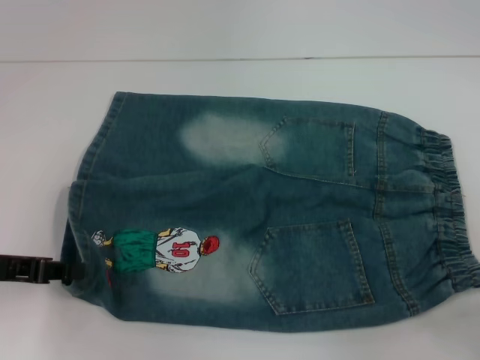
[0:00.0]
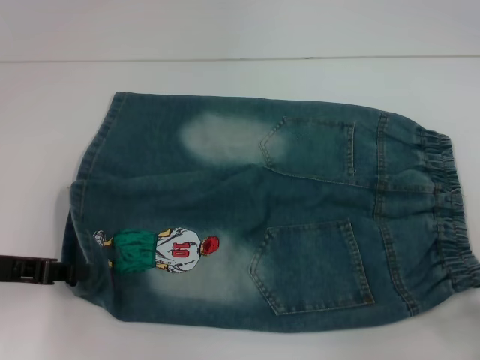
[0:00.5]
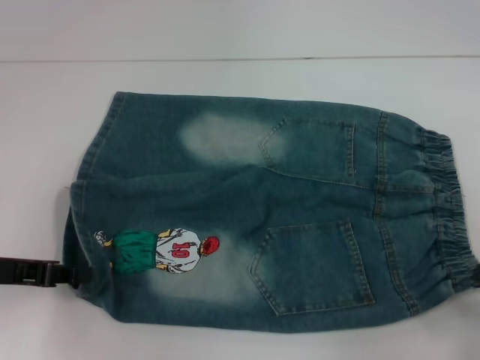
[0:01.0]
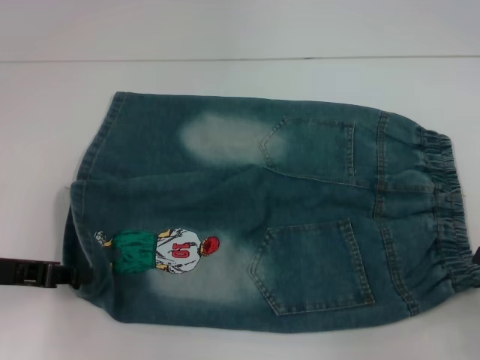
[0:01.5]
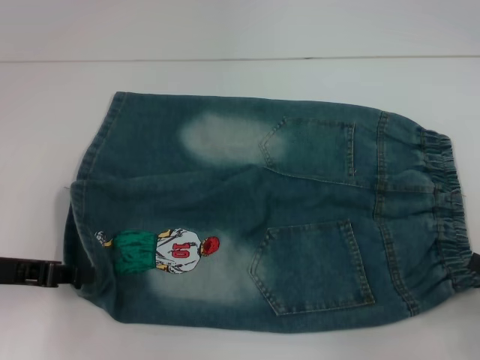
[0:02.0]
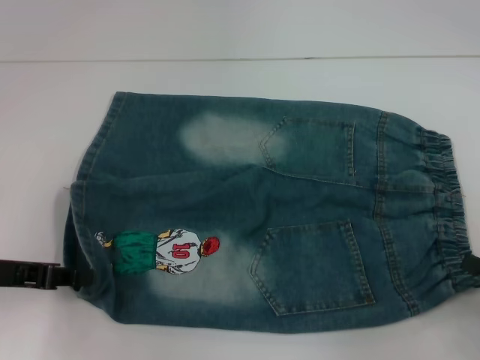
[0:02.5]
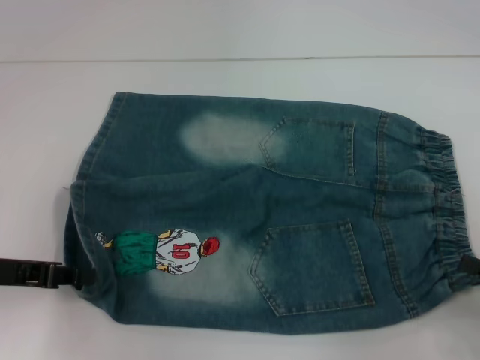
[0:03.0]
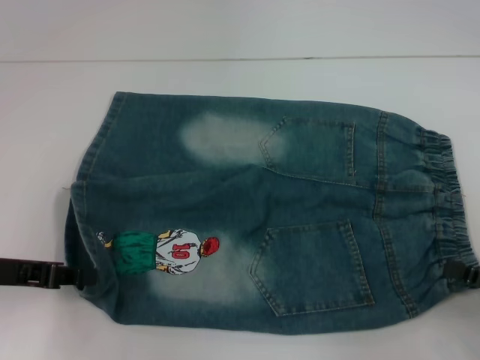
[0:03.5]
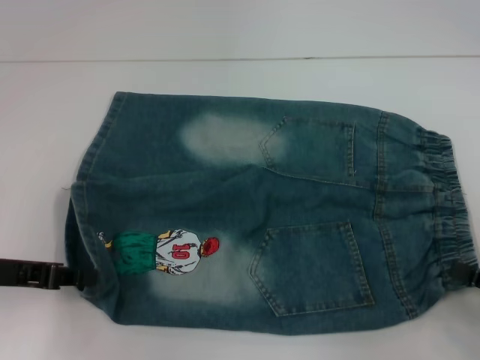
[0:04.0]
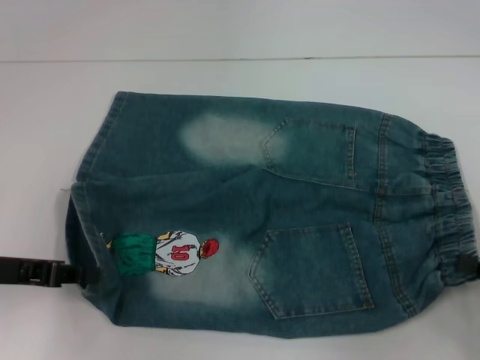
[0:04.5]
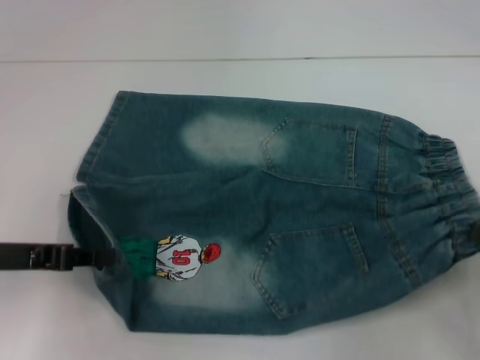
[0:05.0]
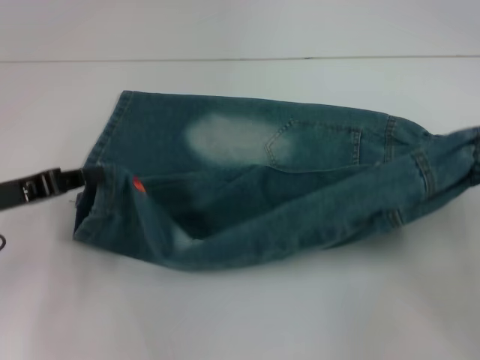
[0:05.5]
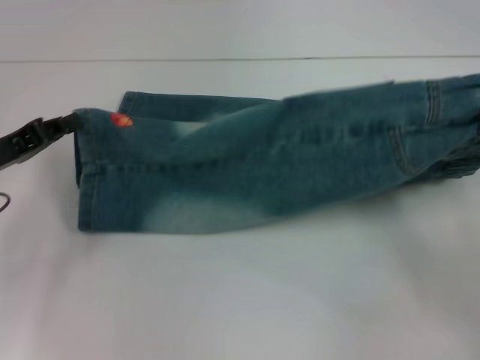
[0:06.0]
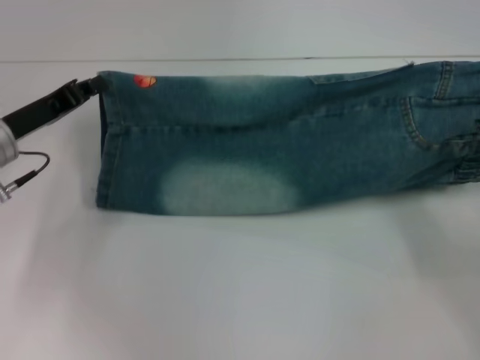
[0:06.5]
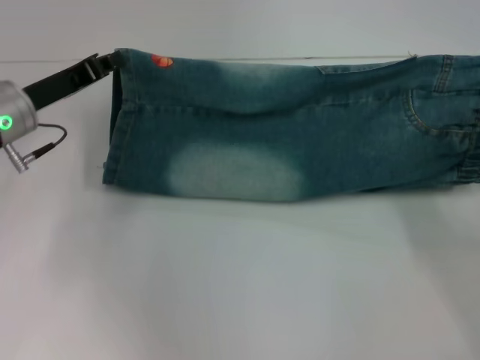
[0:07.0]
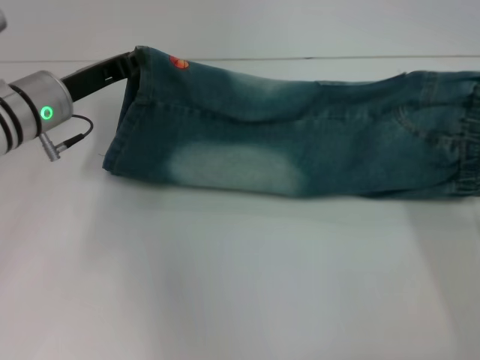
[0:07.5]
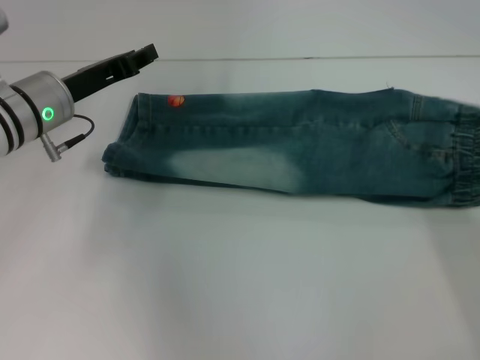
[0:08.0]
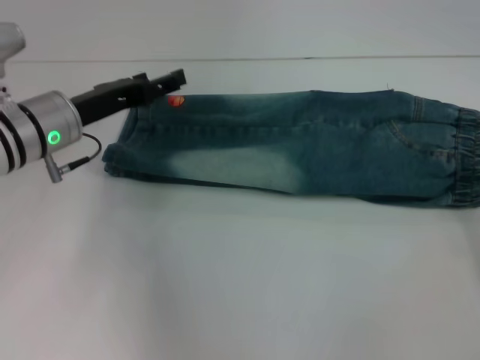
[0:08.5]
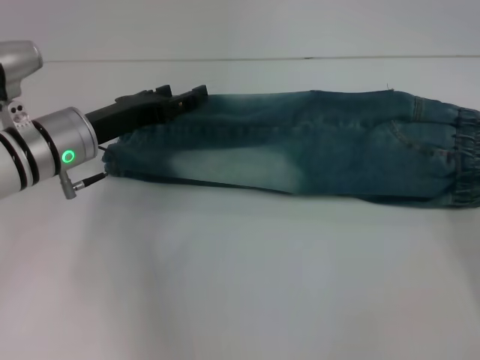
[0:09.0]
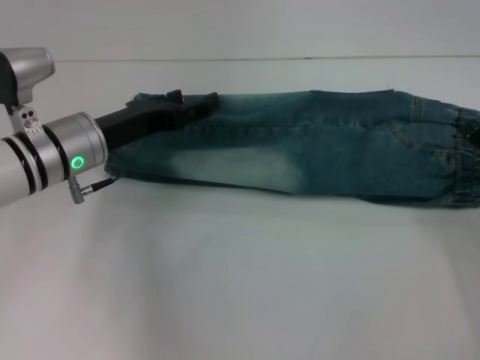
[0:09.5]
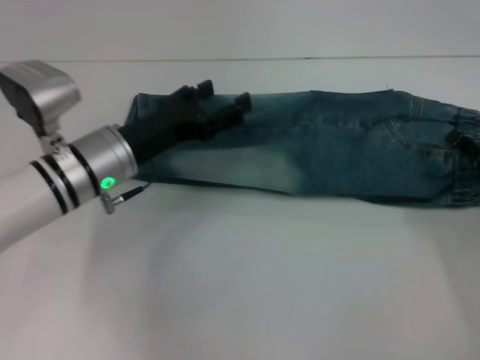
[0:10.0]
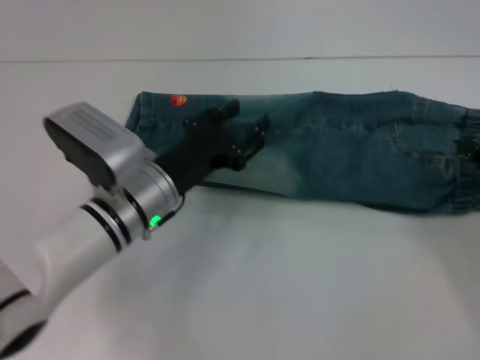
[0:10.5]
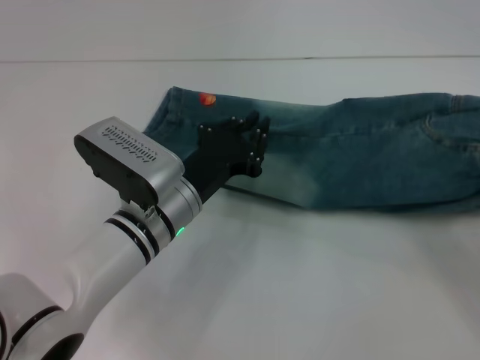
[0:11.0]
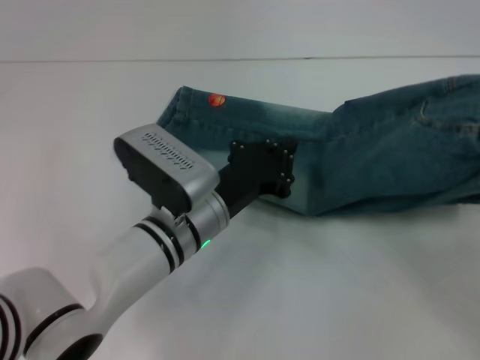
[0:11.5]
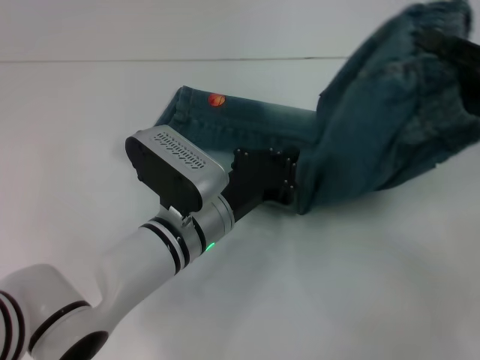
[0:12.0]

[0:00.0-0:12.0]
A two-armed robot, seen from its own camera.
Step, 0:00.0 to 0:04.5: Hold the lower right waistband with your right hand.
Step, 0:05.0 to 0:08.0: Fold upward with your right hand.
Step, 0:08.5 to 0:10.5: Grab the waistband with your right hand.
0:00.0 to 0:02.0: The grippers move only a little.
0:02.0 to 0:04.0: The grippers make only small movements.
0:04.0 to 0:06.0: The two grippers go about 5 cm forward. The right gripper closes.
0:06.0 to 0:08.0: The right gripper changes place by about 5 cm; the left gripper is displaced to the right and forward by roughly 10 cm.
0:08.0 to 0:10.0: The left gripper moves to the right and backward, about 10 cm, and opens its fingers. The right gripper opens.
0:10.0 to 0:12.0: The right gripper is displaced upward by about 10 cm, and closes its fingers. Meanwhile the left gripper shifts roughly 10 cm to the right, and closes up.

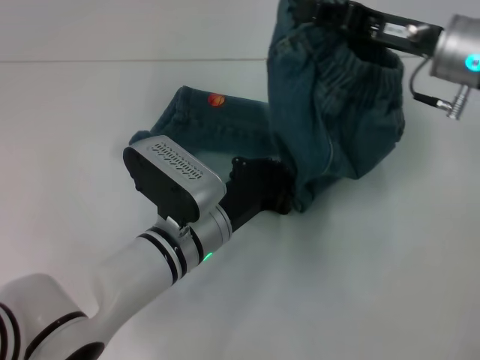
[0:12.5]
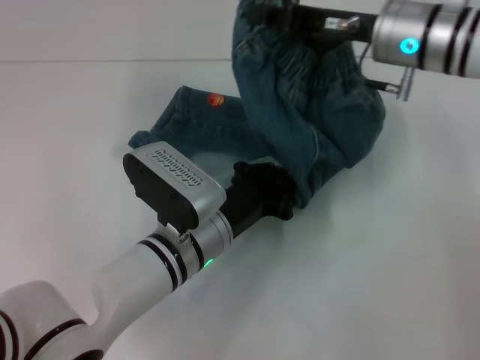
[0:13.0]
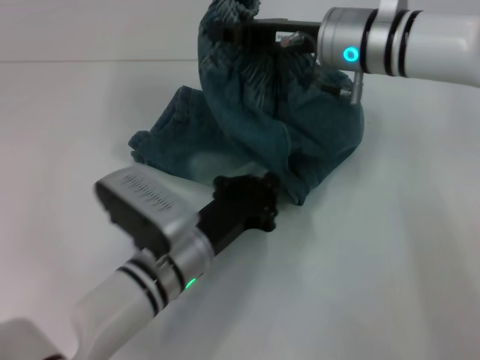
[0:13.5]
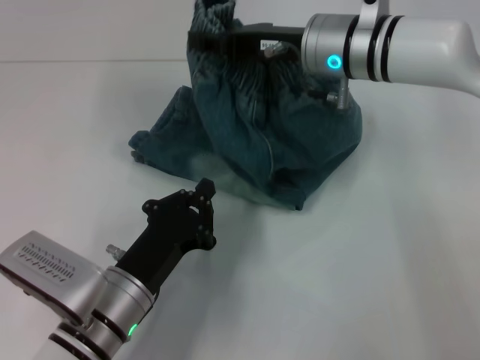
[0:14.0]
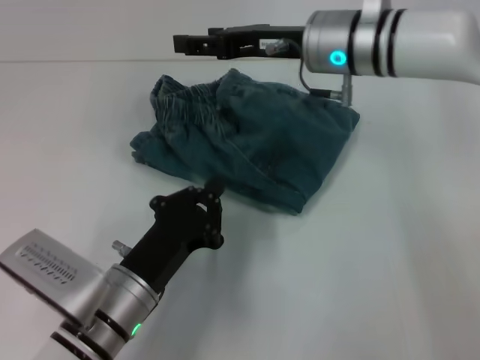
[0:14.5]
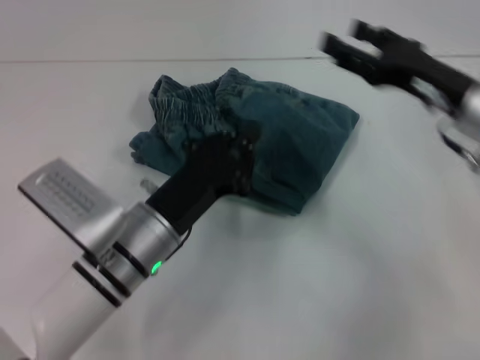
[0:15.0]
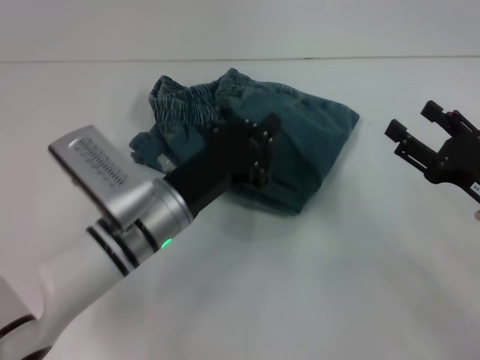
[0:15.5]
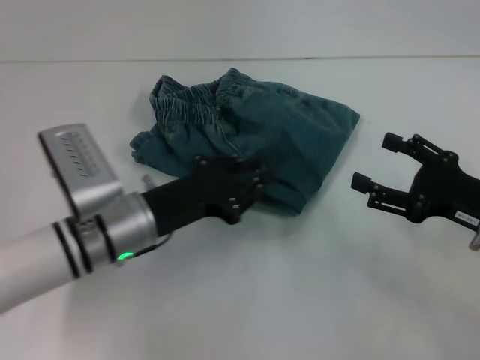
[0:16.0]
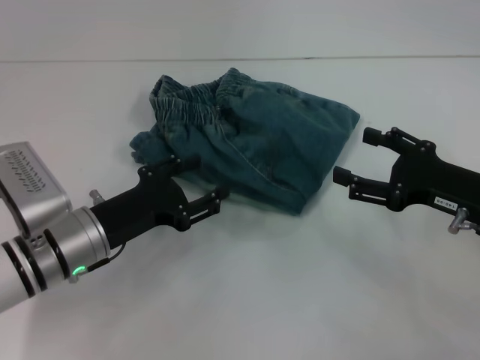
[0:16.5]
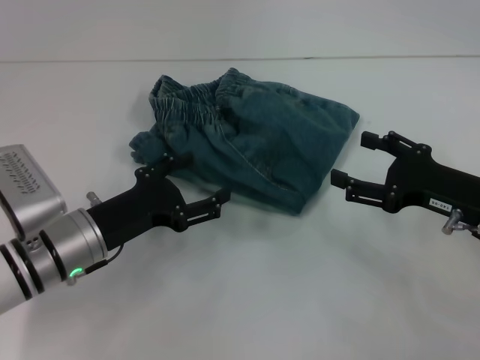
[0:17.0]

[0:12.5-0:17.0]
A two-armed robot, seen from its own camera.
Step, 0:13.5 to 0:14.5: Fold to the left with your right hand.
0:12.5 to 0:14.5: The left gripper shifts about 10 cm backward and to the left. The right gripper is displaced to the left by approximately 10 cm, and opens up.
0:14.5 to 0:17.0: The left gripper shifts roughly 10 cm forward and to the left, and opens its fingers, while the right gripper moves to the right, backward and downward, roughly 25 cm.

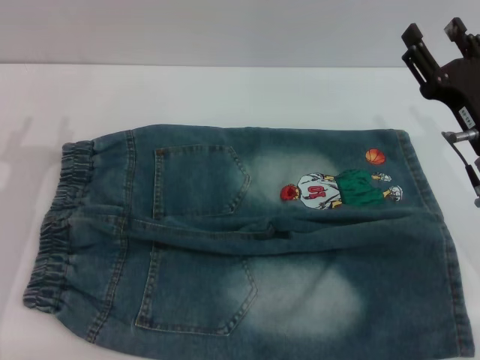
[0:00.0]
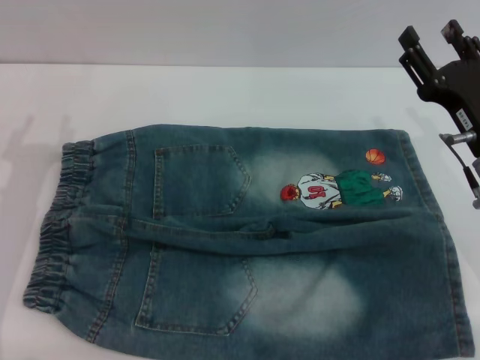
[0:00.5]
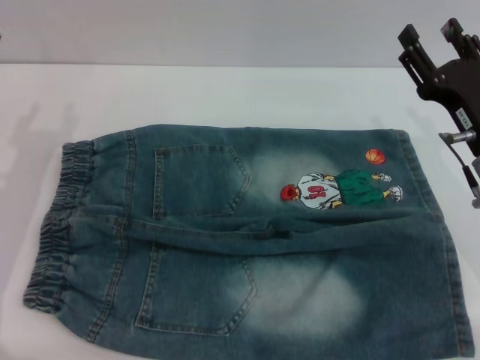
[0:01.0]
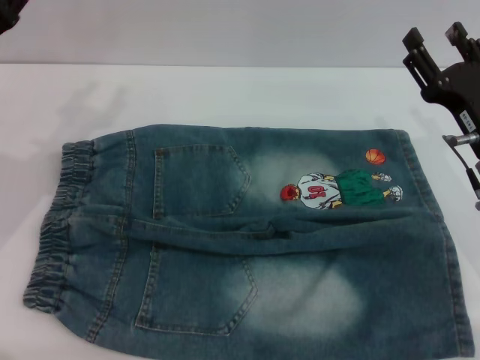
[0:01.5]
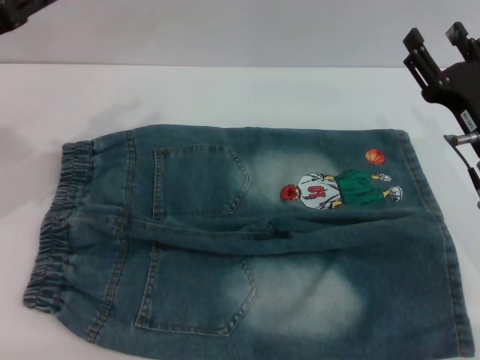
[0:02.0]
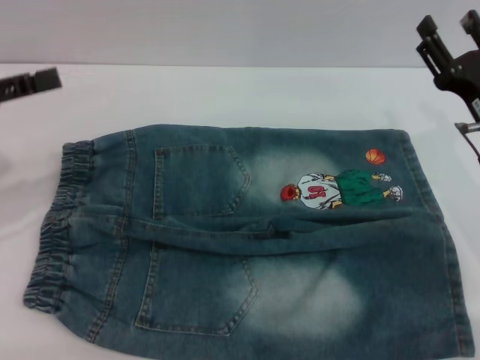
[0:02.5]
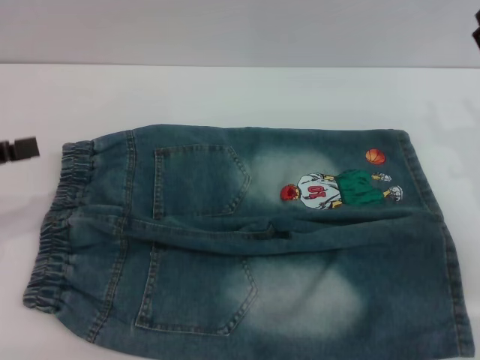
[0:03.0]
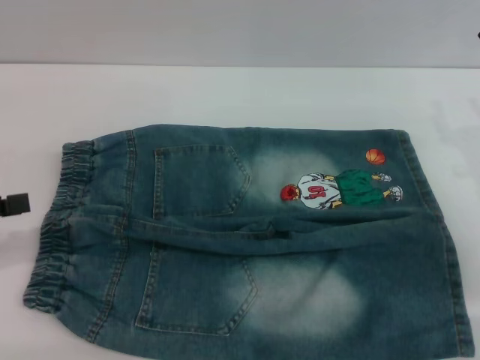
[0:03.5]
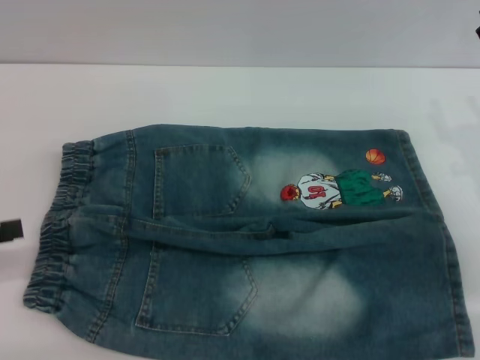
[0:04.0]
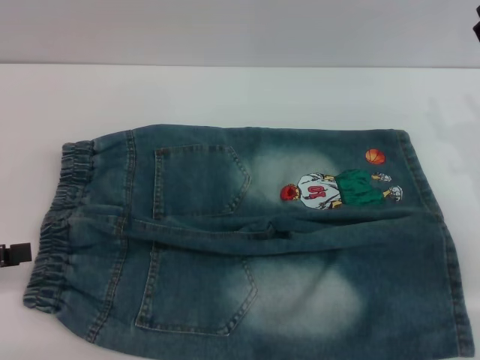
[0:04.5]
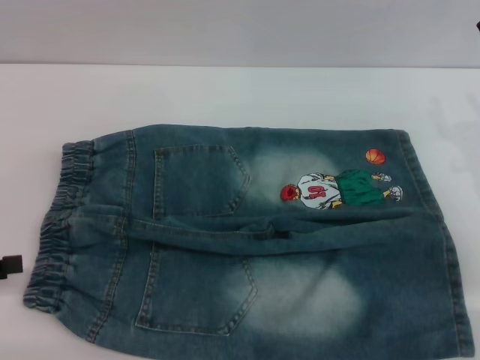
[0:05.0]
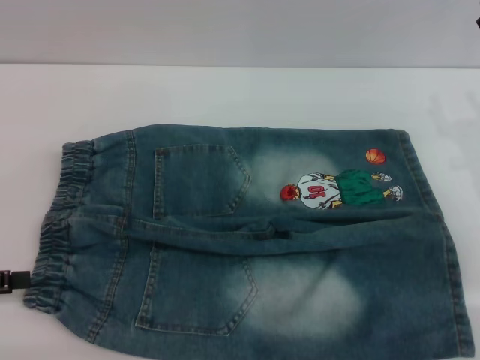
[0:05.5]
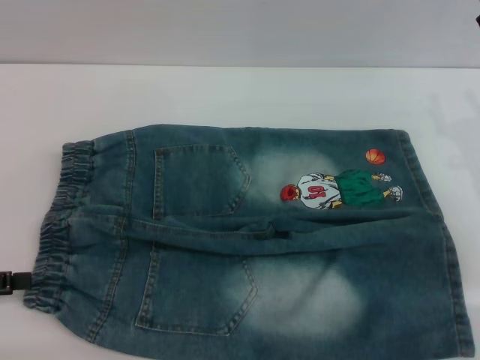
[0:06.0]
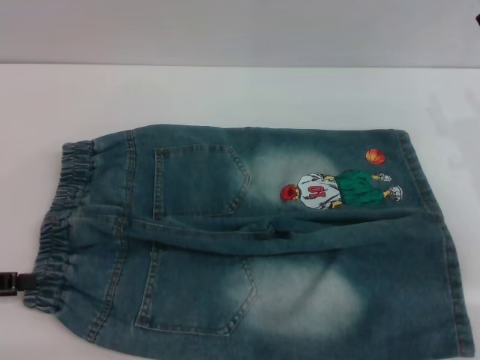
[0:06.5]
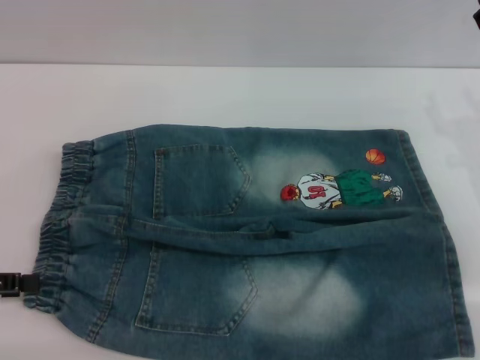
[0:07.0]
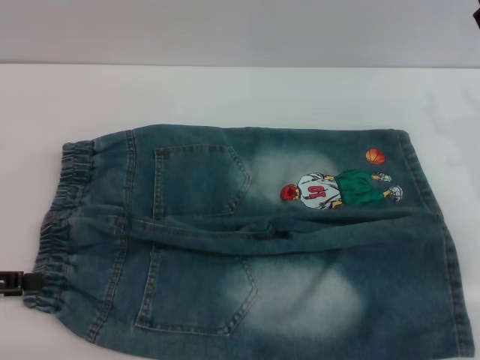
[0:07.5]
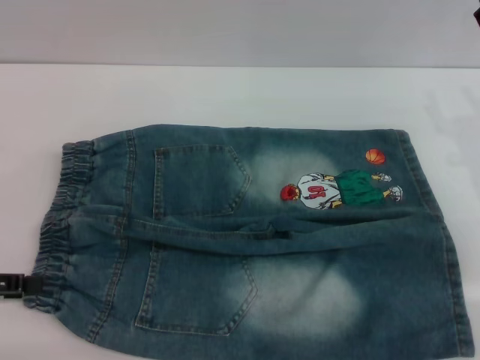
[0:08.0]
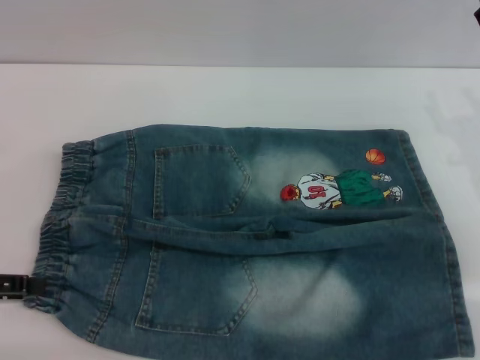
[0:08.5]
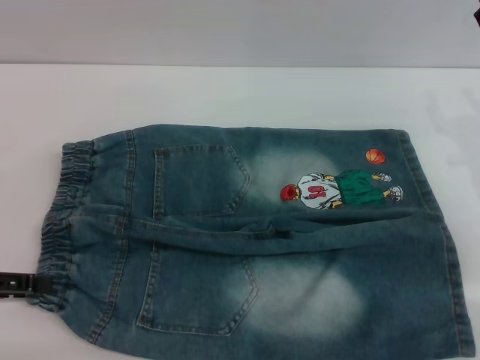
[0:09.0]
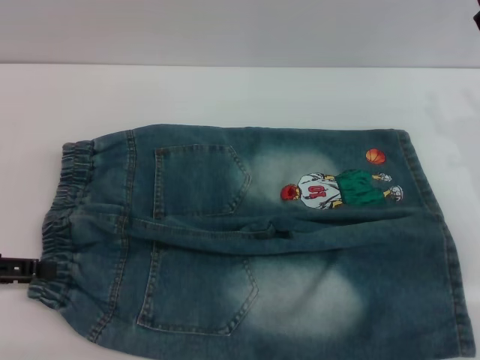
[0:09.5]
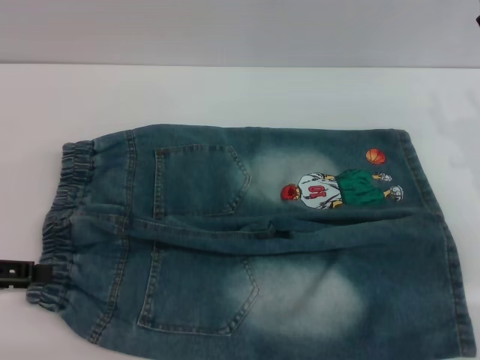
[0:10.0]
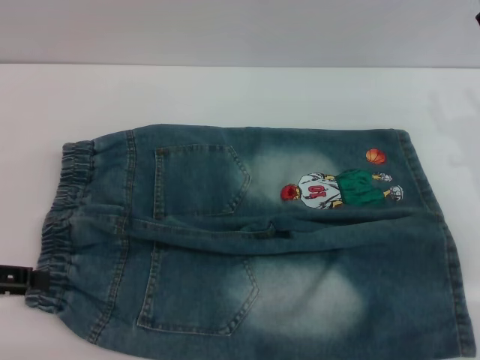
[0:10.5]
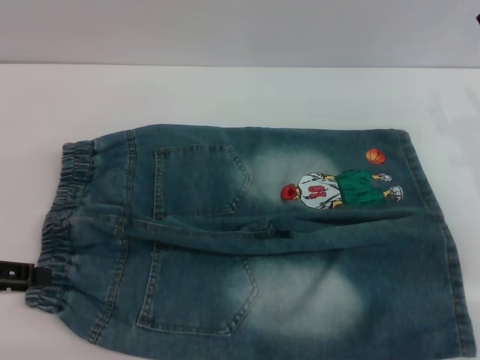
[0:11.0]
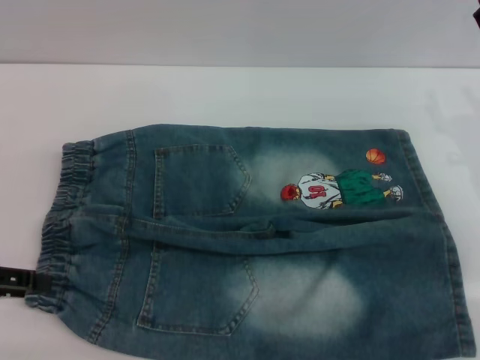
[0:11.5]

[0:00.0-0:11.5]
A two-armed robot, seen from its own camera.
0:00.0 to 0:02.0: The left gripper goes approximately 10 cm upward and forward.
0:02.0 to 0:04.0: The left gripper heads backward, to the left and downward, covering about 15 cm.
0:06.0 to 0:07.5: The two grippers keep their place.
0:07.5 to 0:11.5: There are only small adjustments of the grippers.
